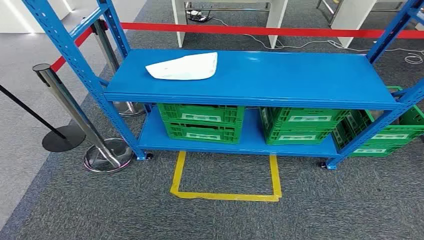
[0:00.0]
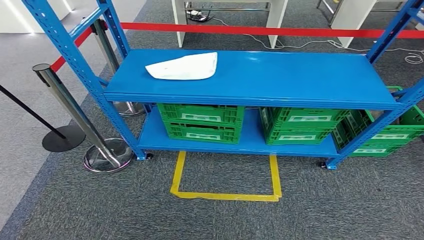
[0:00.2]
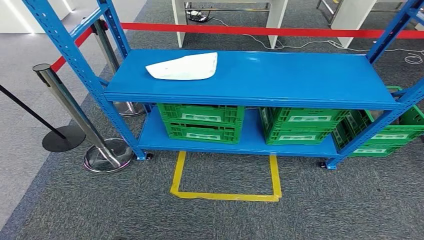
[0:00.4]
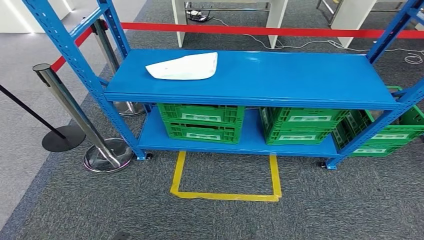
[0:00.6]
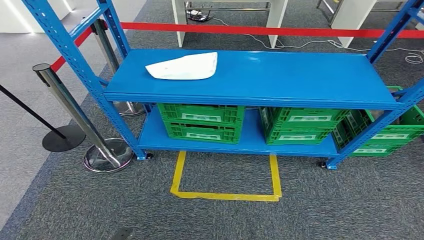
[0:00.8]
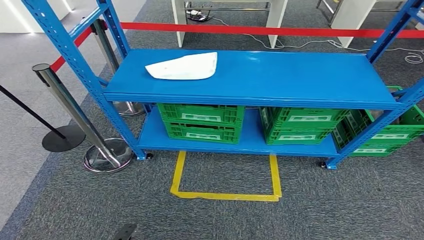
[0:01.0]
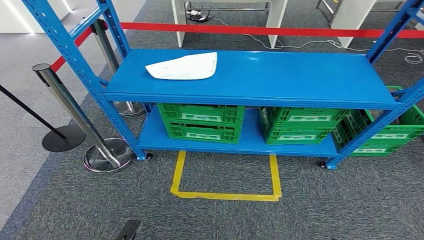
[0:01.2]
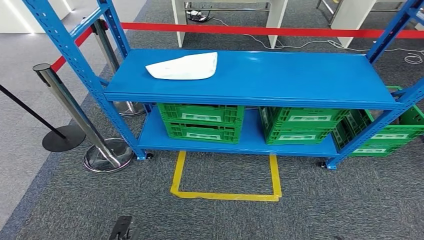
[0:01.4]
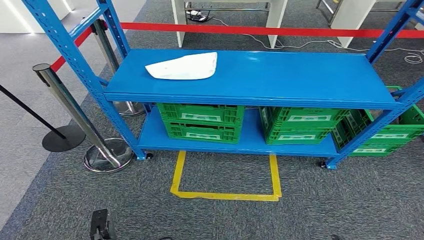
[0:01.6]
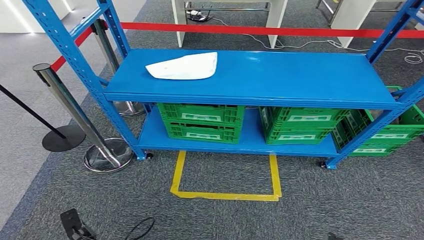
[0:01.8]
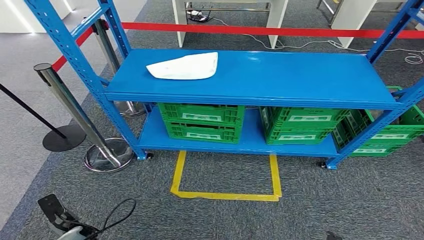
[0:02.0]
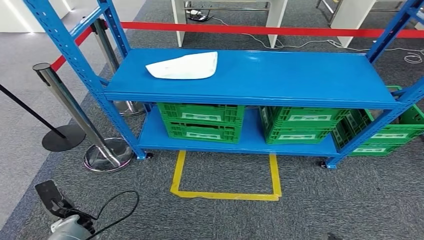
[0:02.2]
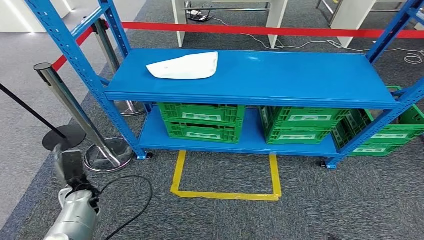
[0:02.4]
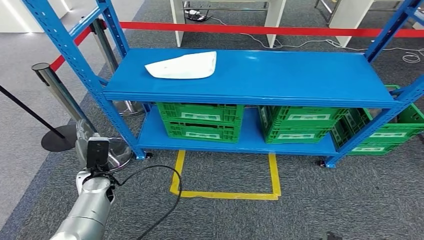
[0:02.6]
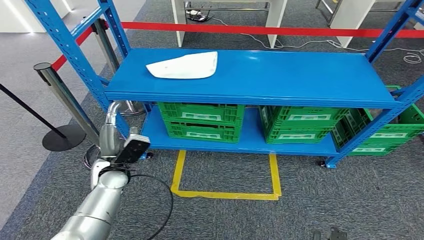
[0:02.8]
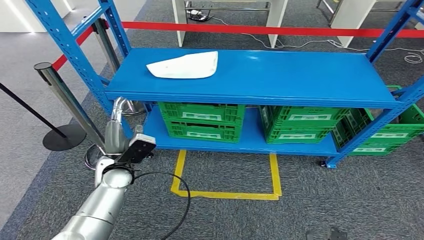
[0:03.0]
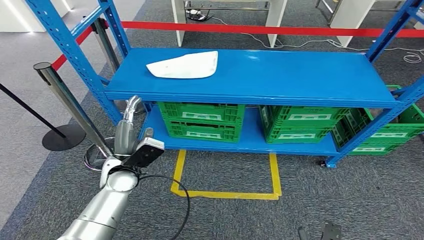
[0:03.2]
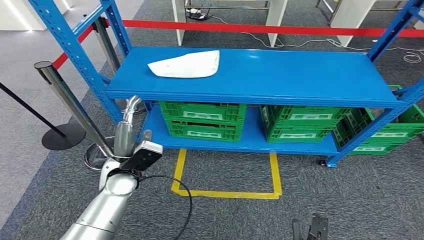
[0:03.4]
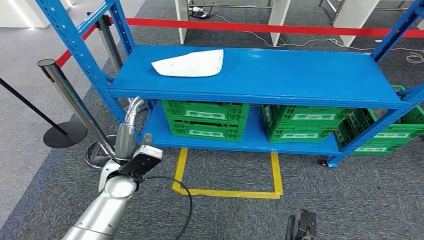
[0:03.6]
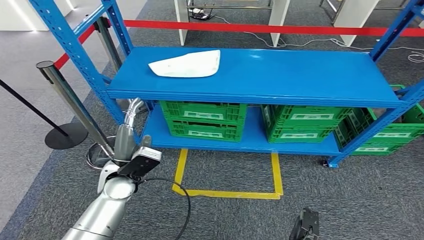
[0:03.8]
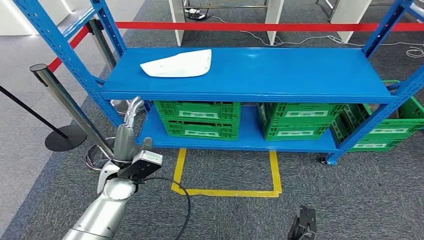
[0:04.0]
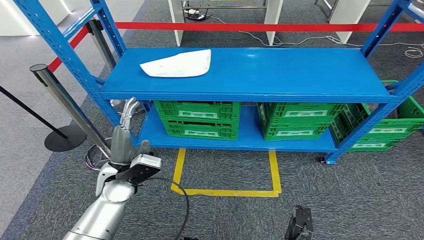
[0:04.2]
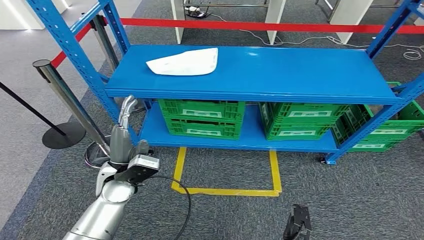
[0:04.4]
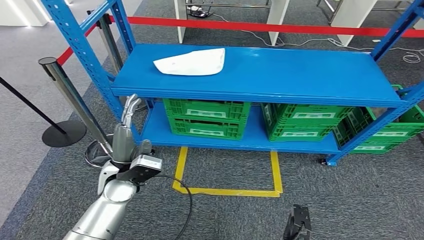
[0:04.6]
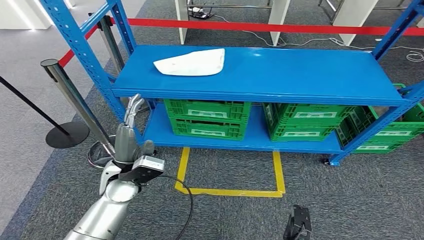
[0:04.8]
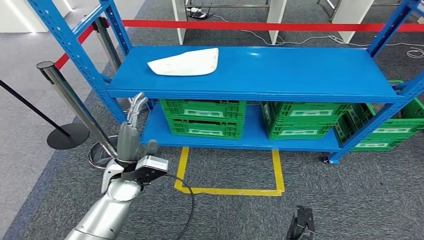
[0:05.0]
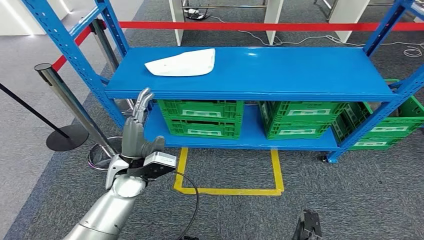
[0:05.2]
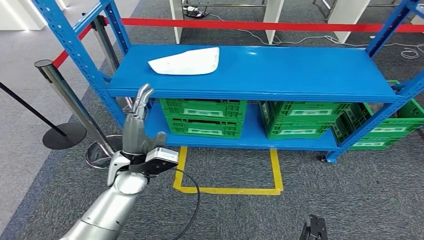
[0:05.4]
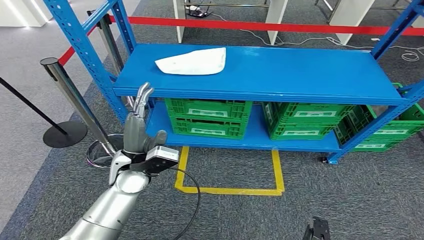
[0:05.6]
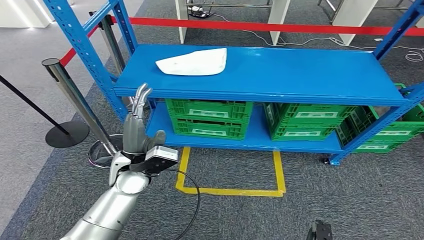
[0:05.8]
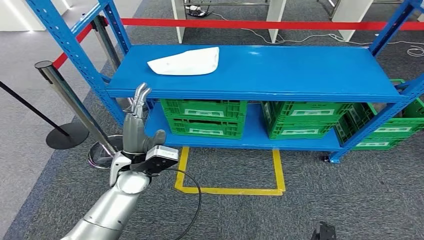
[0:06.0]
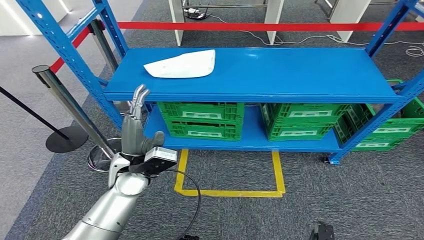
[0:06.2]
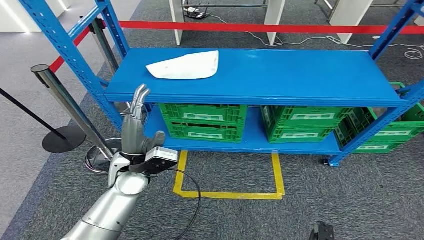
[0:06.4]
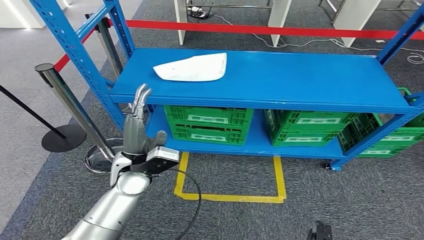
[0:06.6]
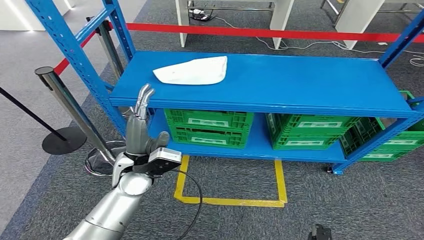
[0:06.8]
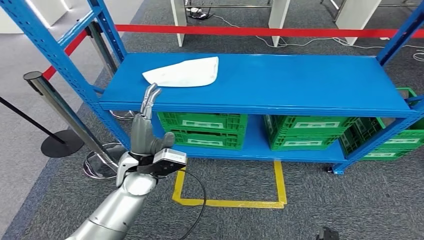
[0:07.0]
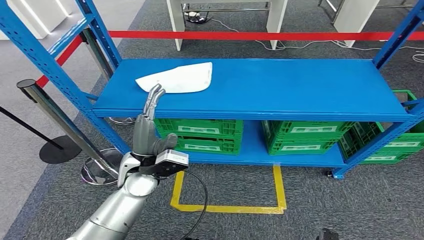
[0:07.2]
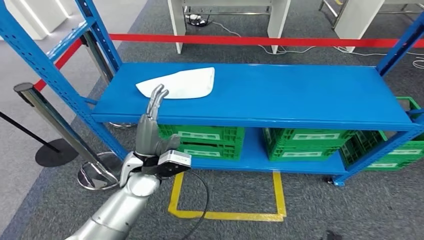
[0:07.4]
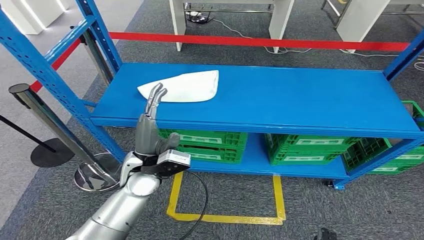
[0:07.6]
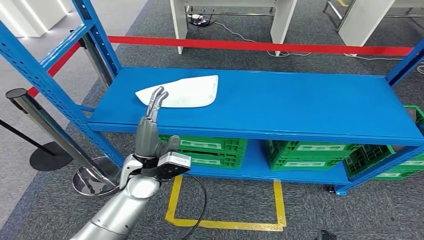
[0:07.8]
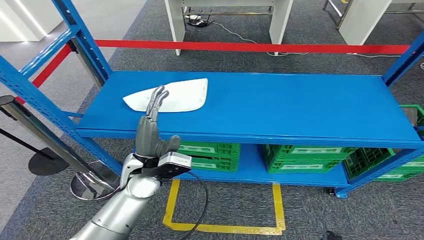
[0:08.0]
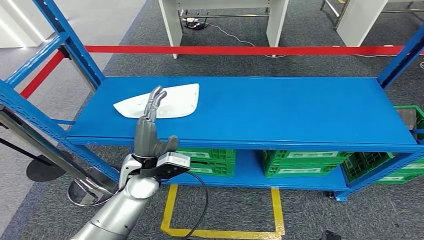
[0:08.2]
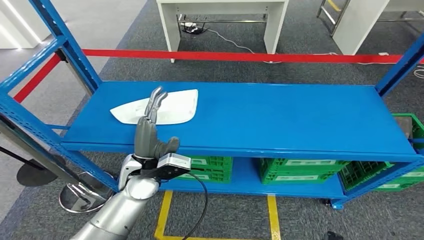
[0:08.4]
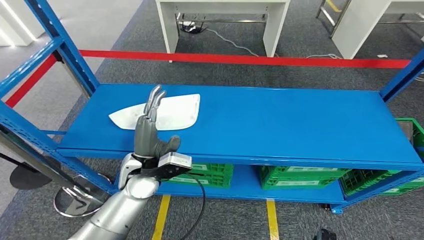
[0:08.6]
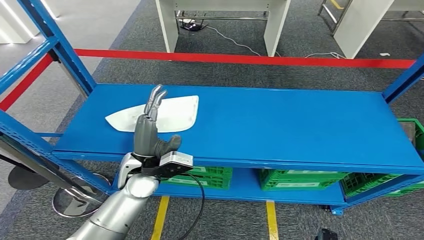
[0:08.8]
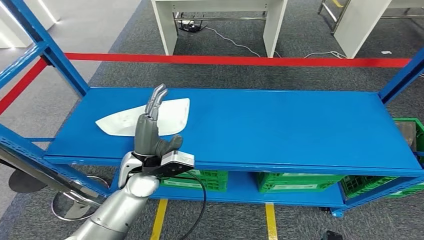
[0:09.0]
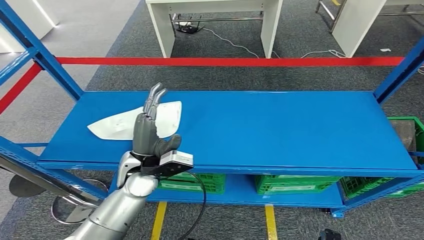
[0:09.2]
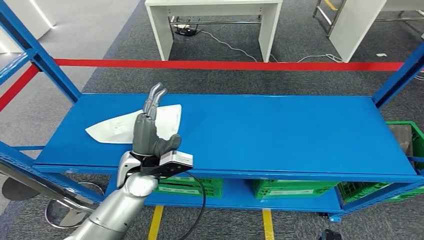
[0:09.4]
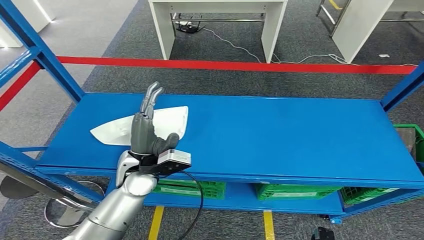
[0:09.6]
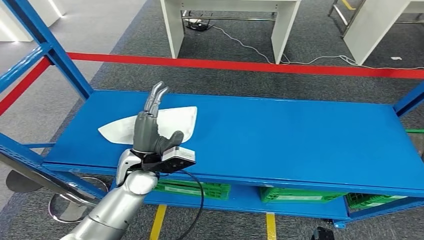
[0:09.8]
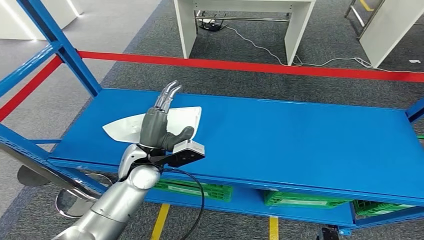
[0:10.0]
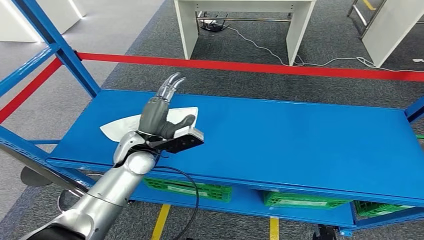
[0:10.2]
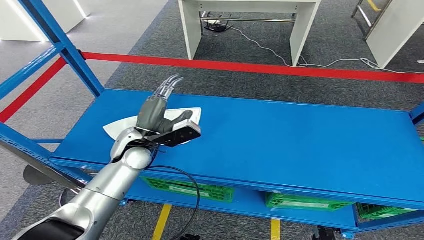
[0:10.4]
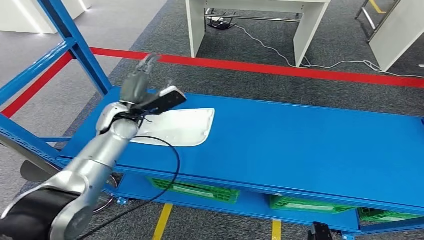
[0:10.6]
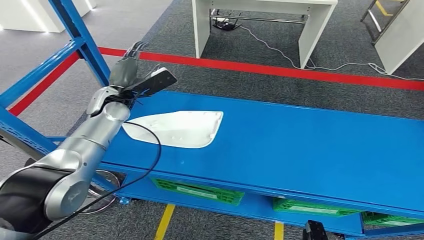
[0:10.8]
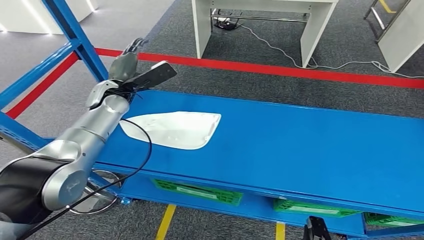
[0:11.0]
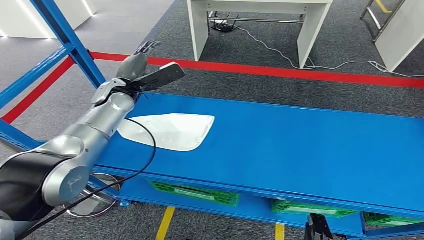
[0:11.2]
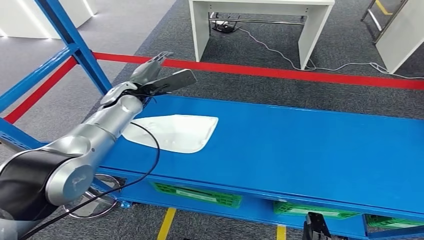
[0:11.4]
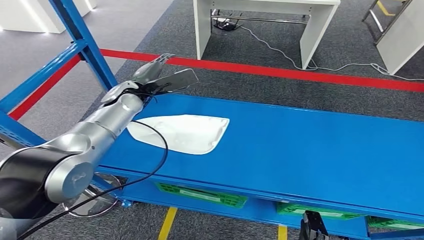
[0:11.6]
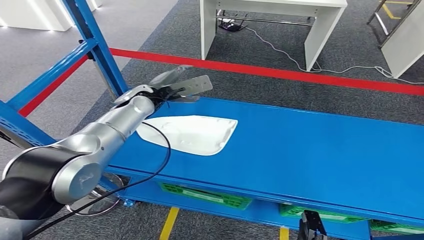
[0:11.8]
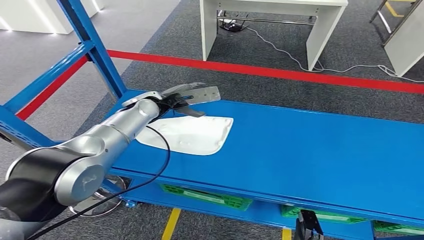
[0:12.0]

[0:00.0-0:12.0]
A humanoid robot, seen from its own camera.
1.6 to 3.0 s: The left hand travels upward and forward by approximately 30 cm.
4.4 to 6.0 s: The right hand goes roughly 5 cm to the right.

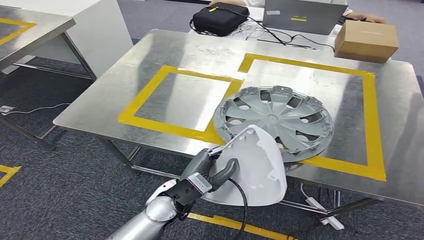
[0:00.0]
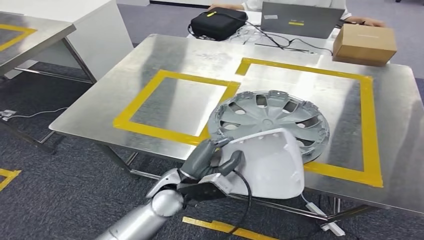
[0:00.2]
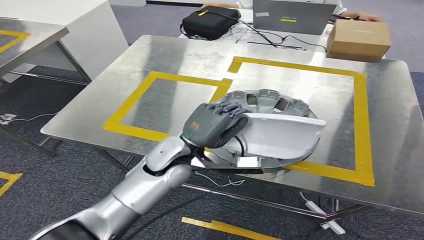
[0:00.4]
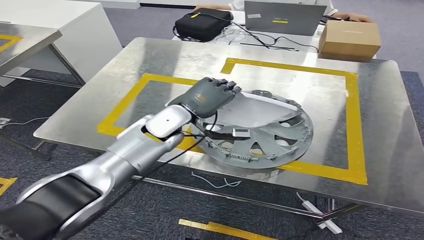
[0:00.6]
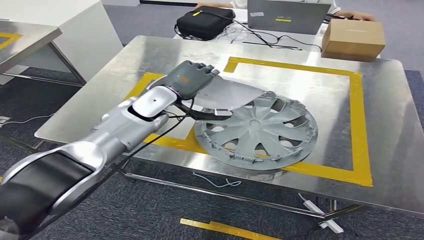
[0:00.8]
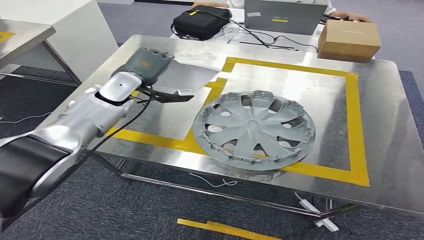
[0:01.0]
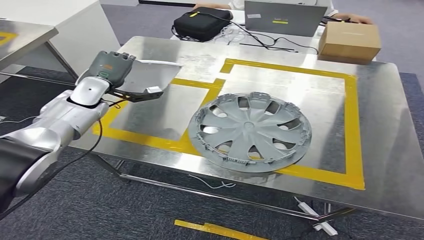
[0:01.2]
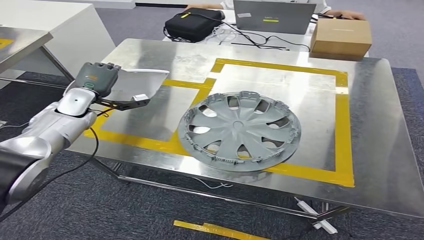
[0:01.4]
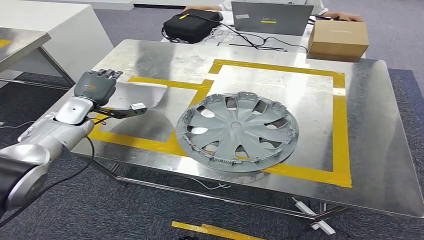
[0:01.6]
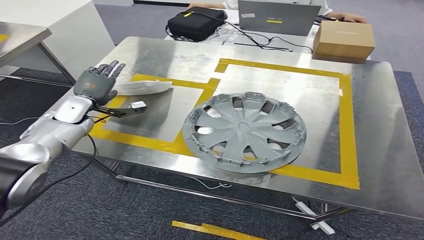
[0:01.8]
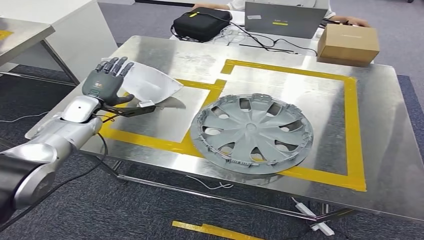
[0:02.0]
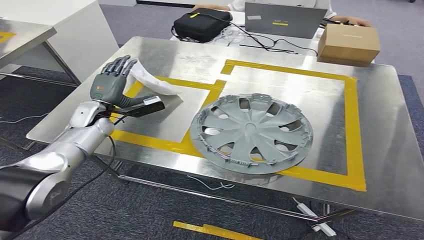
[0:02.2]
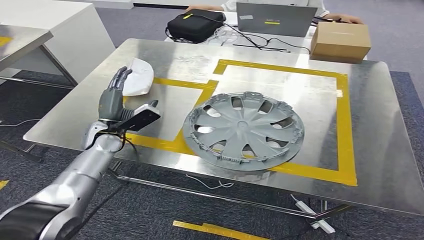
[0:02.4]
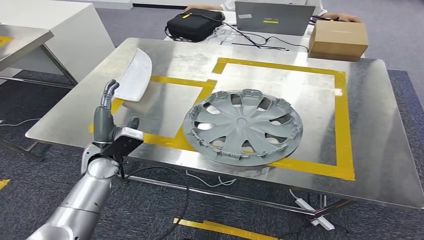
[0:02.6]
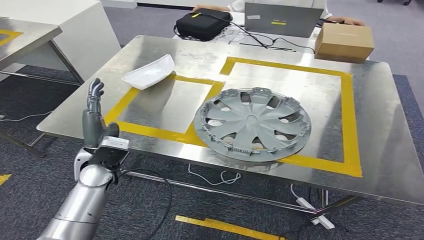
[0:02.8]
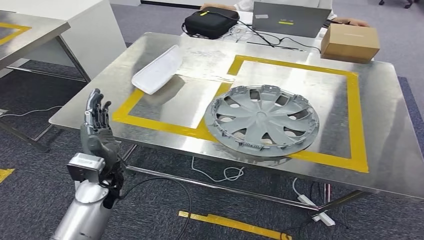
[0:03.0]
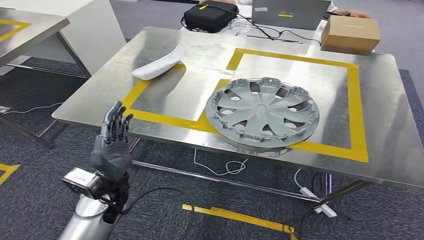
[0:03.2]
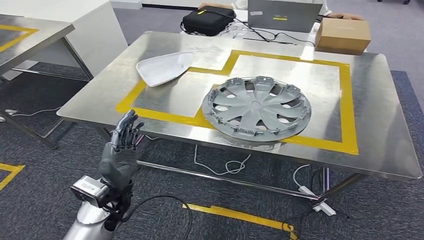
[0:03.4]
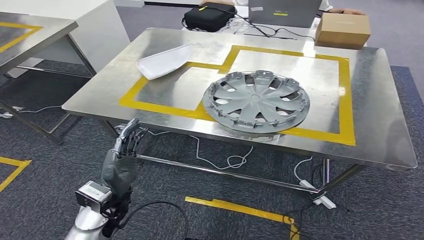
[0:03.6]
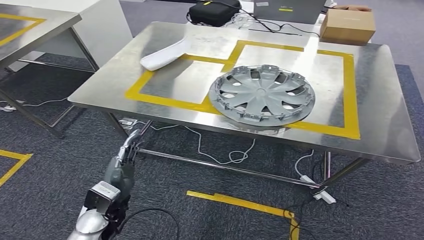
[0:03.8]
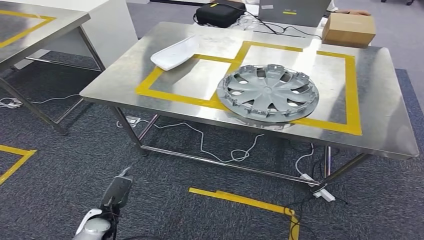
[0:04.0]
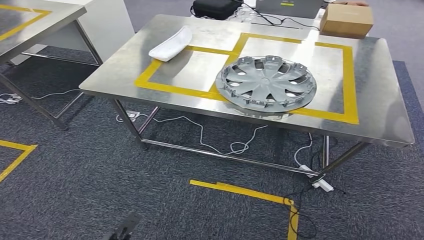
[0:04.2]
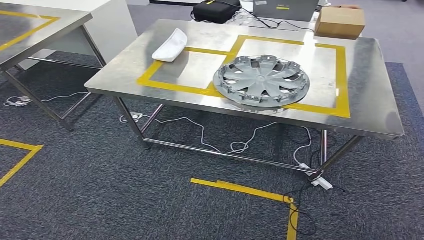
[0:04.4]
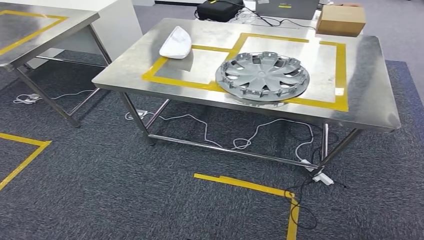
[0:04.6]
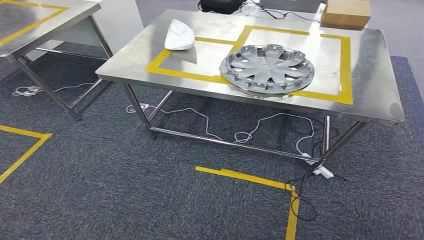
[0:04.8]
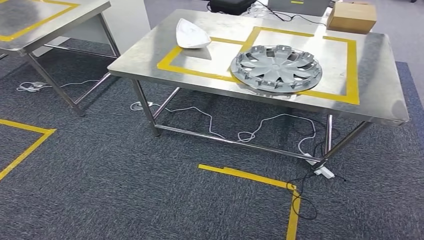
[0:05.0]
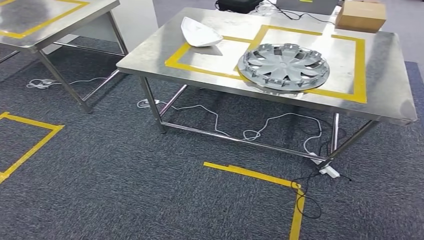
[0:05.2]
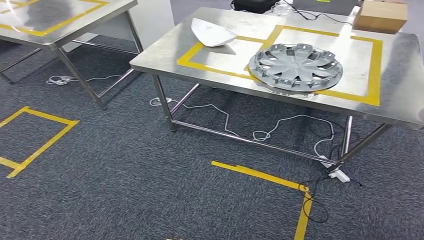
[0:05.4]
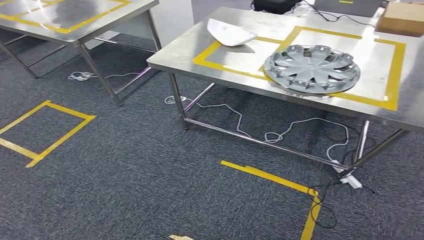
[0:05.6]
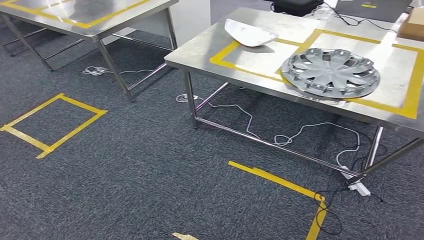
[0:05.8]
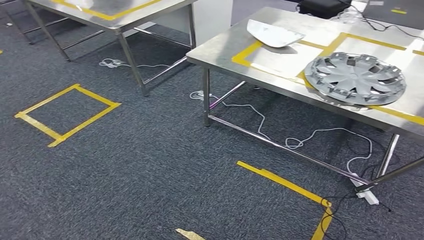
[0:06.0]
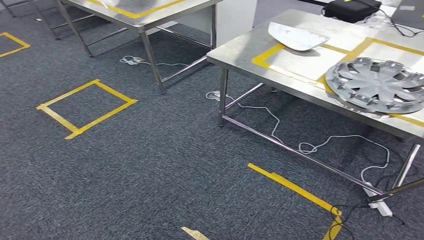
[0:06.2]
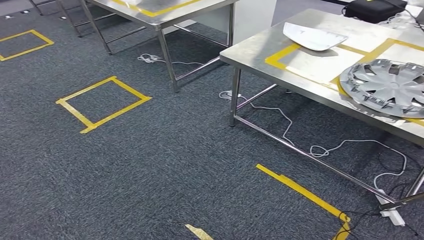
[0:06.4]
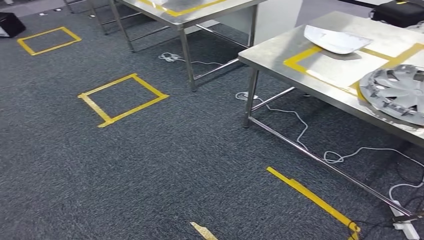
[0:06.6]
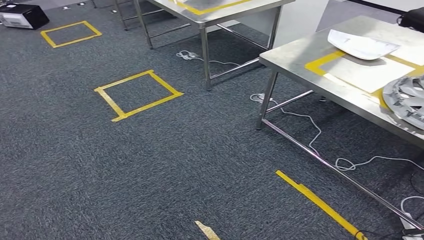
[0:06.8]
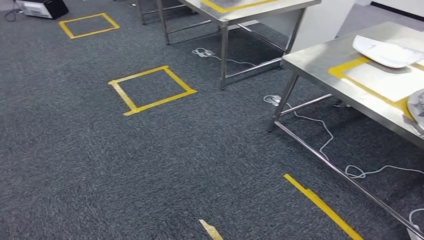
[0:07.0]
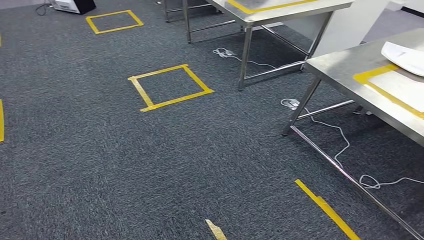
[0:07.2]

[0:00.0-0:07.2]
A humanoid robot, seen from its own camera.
Step, 1.2 to 5.6 s: Insert the small parts into the corresponding holes on the workbench.
